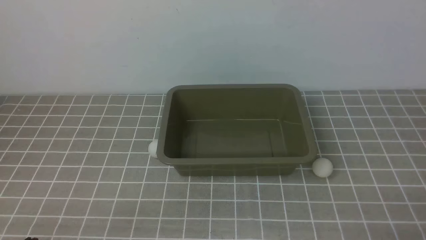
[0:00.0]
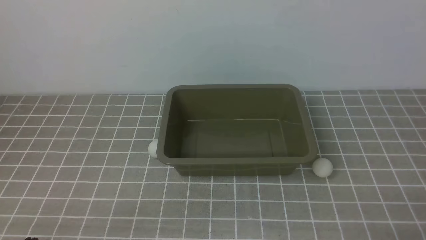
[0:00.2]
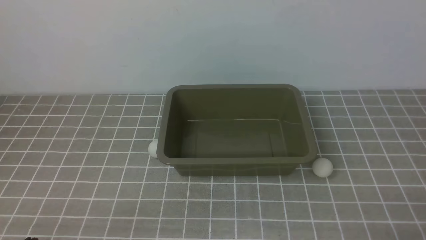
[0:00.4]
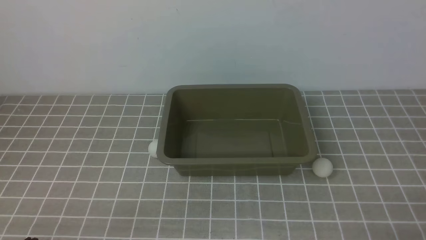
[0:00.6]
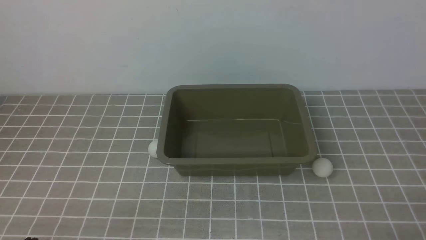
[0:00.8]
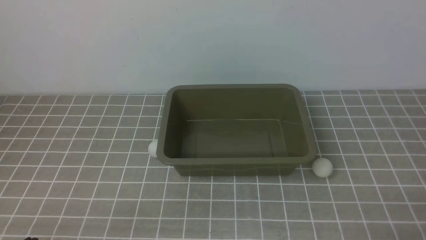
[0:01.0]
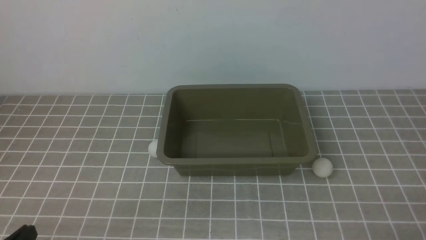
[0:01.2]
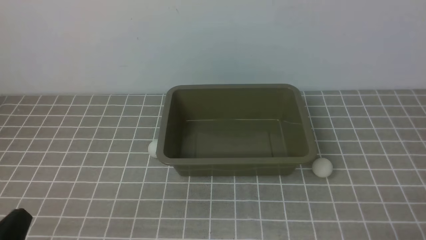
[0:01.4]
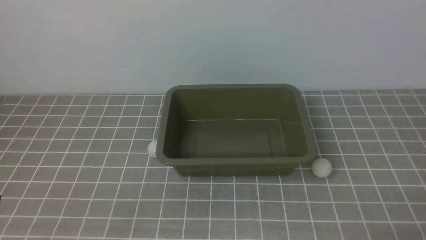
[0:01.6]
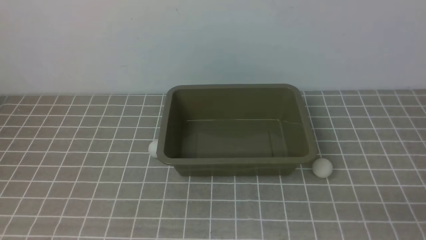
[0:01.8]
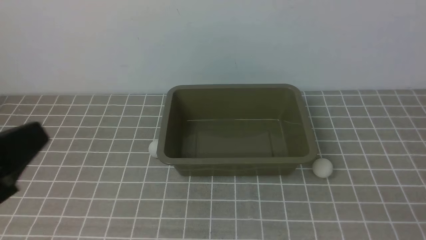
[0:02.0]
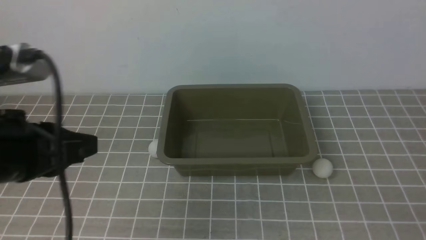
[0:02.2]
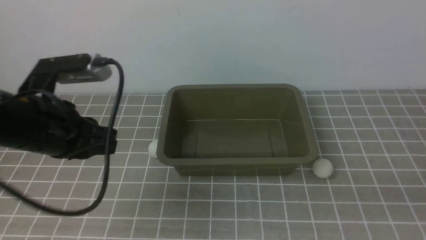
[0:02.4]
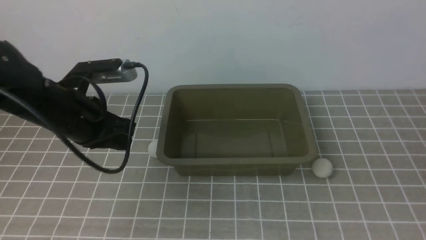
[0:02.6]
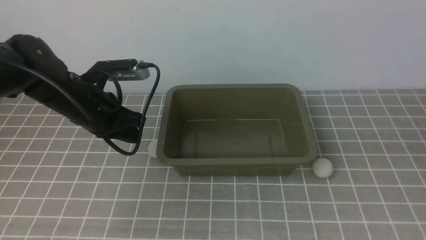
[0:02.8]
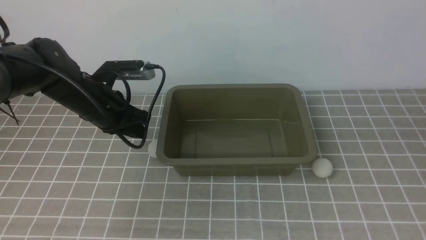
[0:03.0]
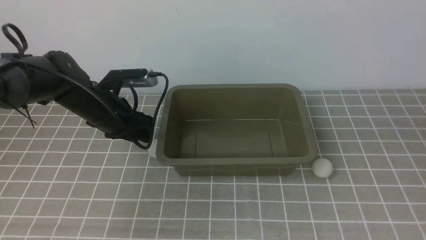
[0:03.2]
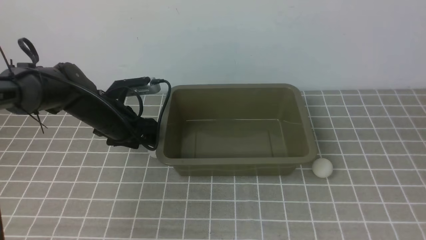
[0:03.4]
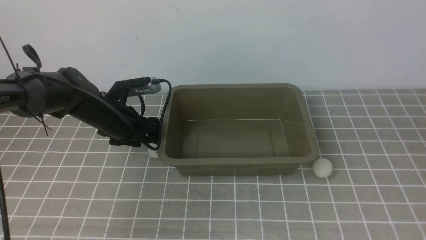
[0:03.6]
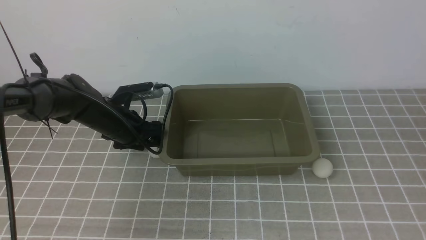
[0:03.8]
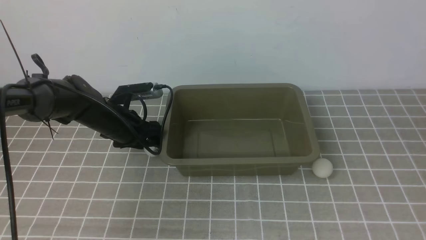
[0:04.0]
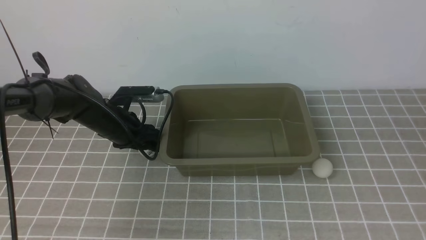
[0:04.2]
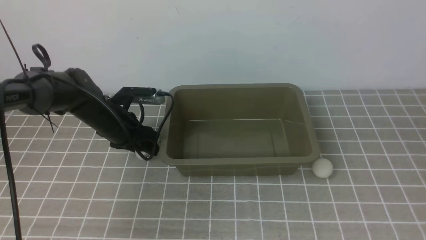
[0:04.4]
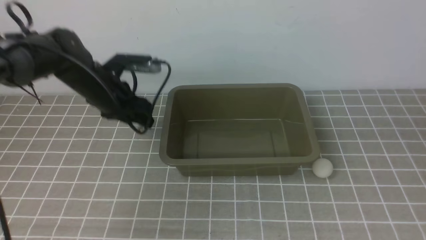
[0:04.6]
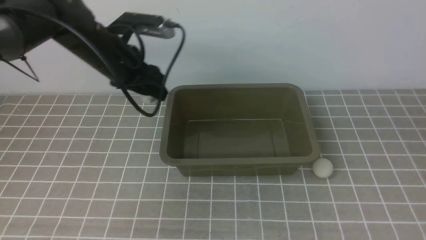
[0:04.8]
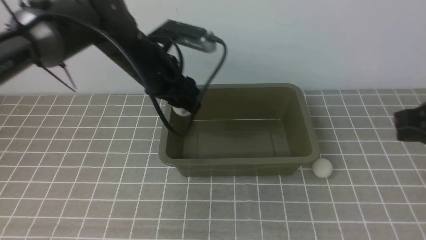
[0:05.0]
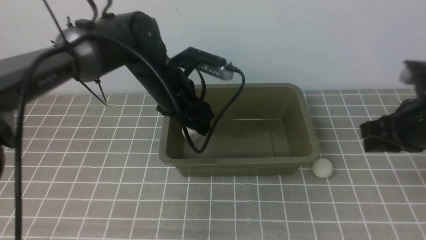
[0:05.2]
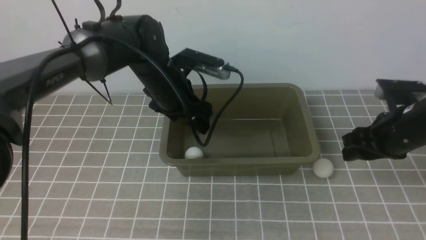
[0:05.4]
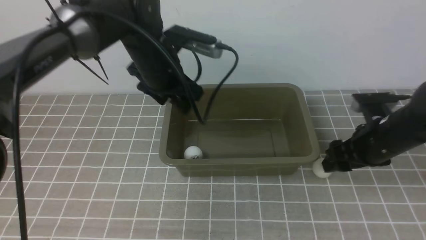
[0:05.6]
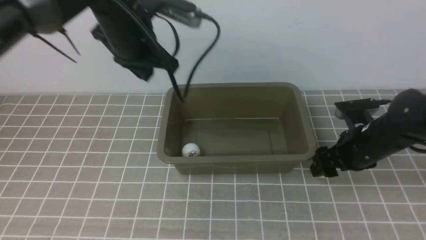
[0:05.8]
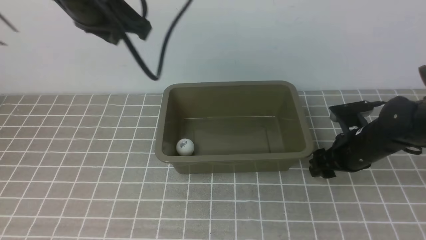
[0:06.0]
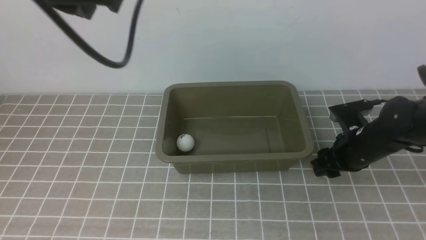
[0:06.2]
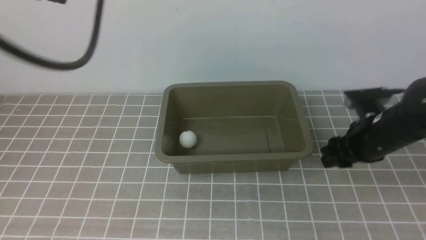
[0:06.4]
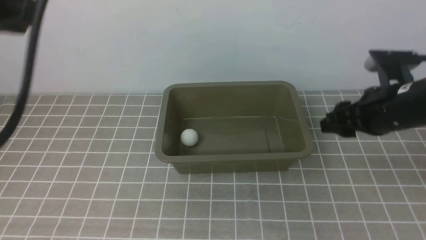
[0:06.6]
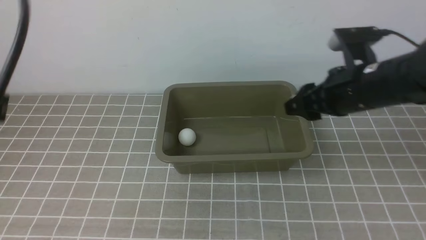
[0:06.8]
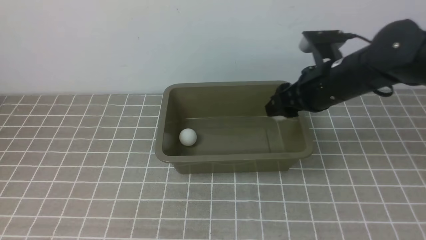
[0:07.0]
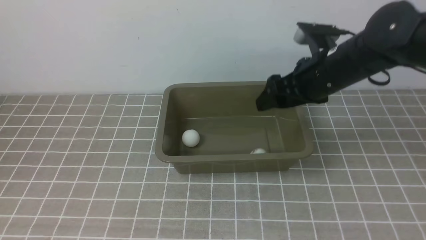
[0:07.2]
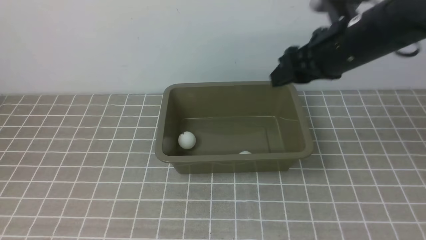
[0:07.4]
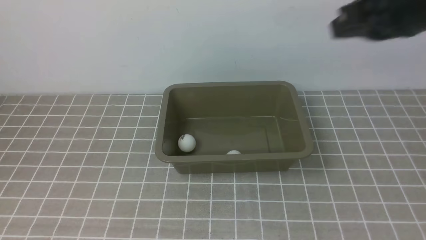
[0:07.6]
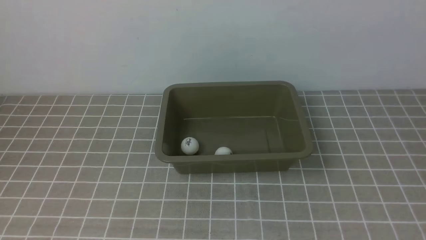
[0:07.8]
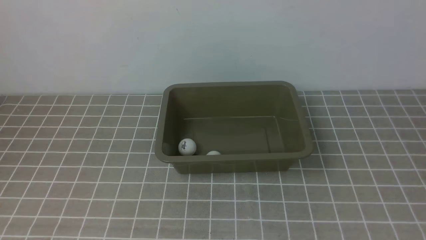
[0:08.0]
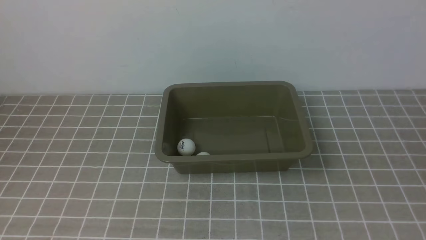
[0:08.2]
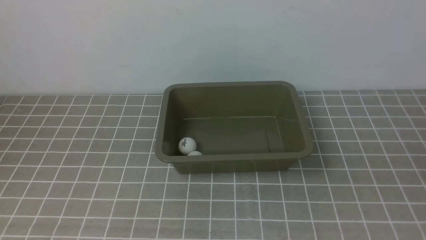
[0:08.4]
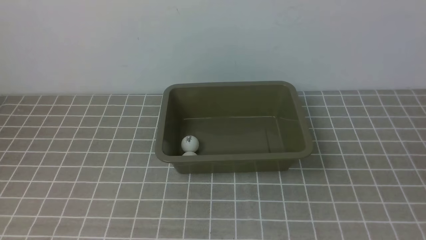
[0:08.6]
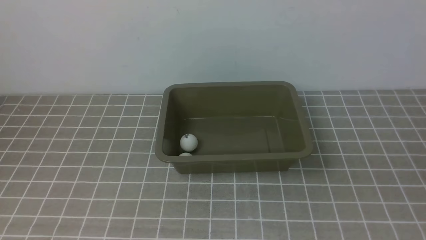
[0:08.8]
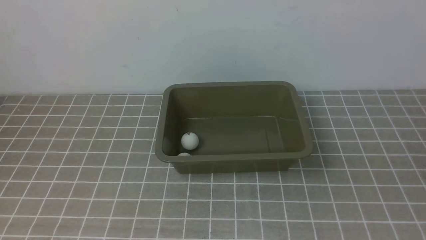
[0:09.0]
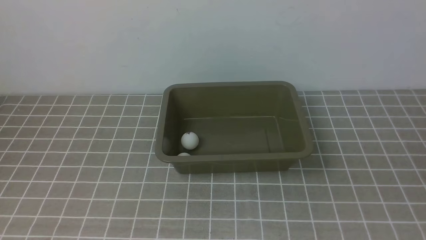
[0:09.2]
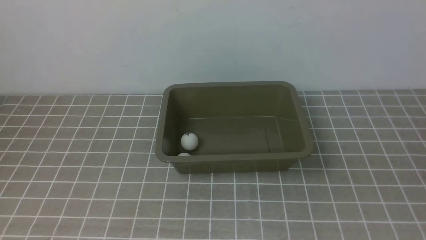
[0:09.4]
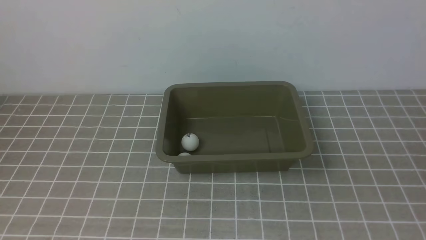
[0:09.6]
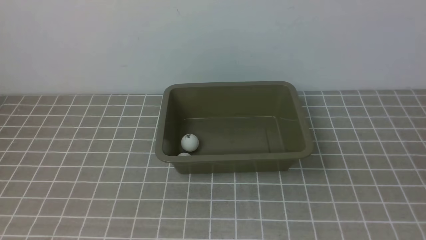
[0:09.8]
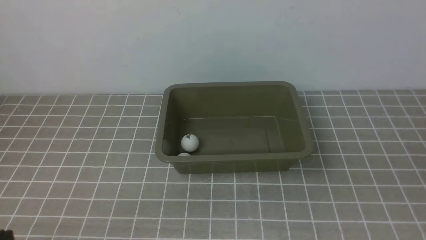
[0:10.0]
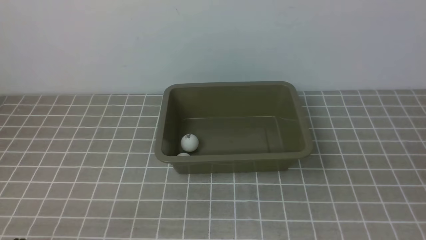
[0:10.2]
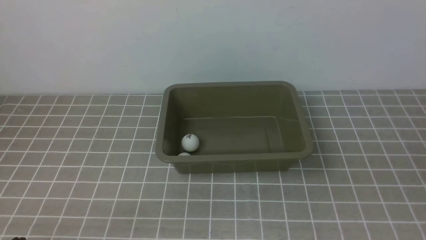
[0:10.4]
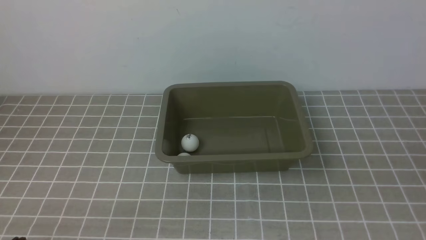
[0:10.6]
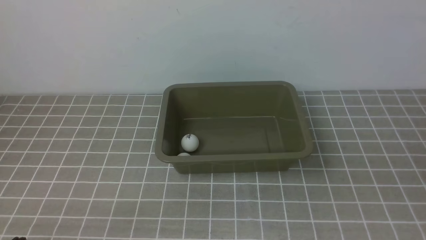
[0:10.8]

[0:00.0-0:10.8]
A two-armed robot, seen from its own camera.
Step, 0:00.0 to 0:04.6: use the left arm to clamp the table tennis ball closest to it.
Step, 0:04.8 to 0:05.4: use the left arm to put the table tennis ball into the box.
Step, 0:05.6 to 0:06.4: use the right arm to clamp the table tennis ball closest to it.
Step, 0:06.8 to 0:07.2: use the right arm to put the table tennis ball into the box.
0:01.6 to 0:03.0: The right gripper travels upward by roughly 20 cm. Meanwhile the left gripper shifts roughly 30 cm forward.
0:03.0 to 0:04.6: The left gripper reaches approximately 10 cm downward, then returns, and opens its fingers.
0:04.6 to 0:06.2: The left gripper is displaced upward and backward by roughly 25 cm, and closes up. The right gripper goes roughly 25 cm downward and forward, and opens.
0:06.2 to 0:07.8: The right gripper goes roughly 35 cm upward and backward, and closes up; the left gripper is displaced backward by roughly 20 cm.

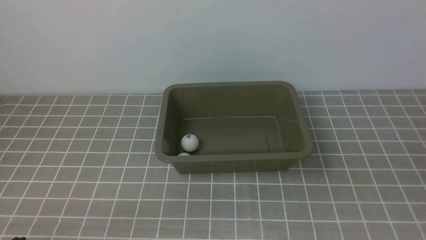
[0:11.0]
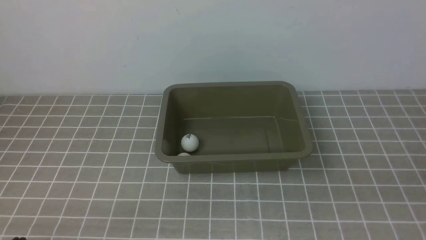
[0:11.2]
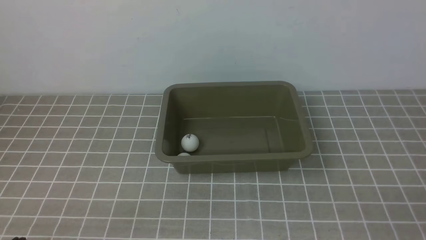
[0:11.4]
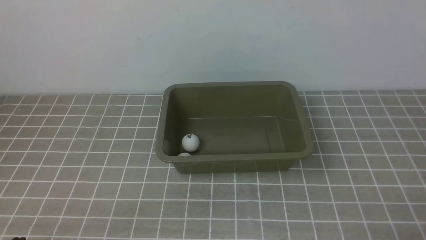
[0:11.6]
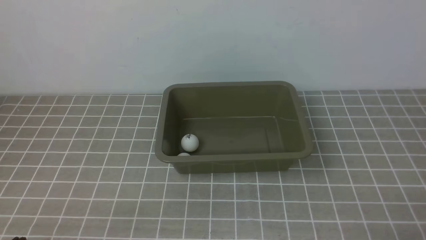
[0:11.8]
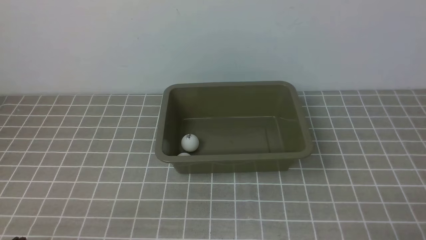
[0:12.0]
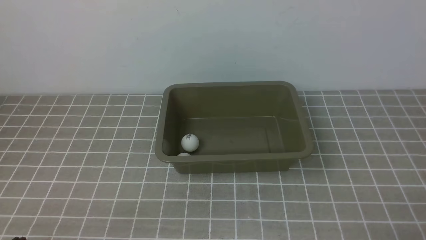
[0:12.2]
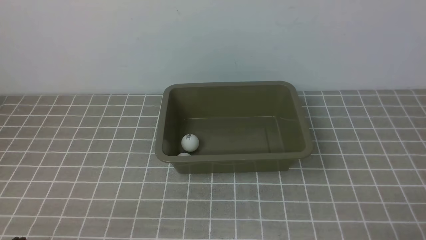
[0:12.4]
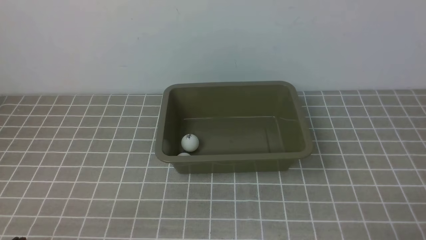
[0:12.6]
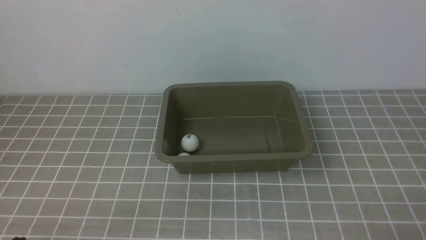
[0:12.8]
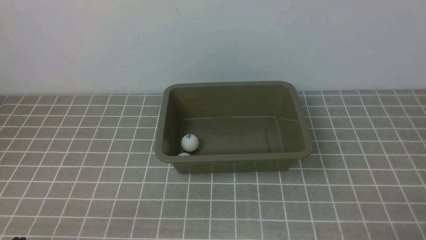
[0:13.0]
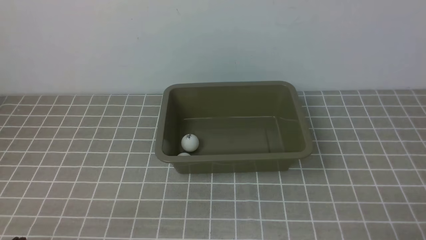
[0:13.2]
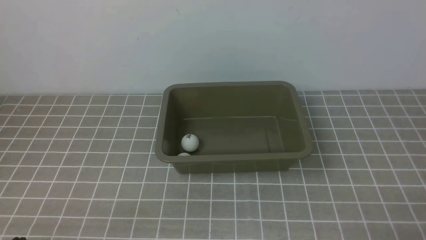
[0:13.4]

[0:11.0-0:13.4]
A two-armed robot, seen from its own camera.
0:12.2 to 0:13.4: Neither gripper changes place.
